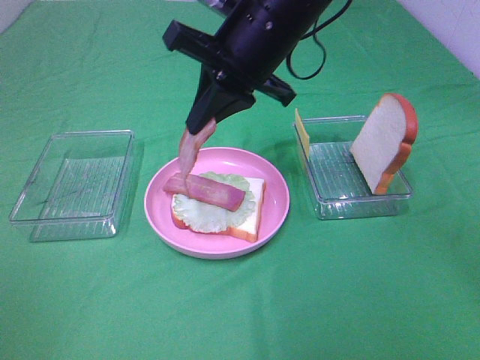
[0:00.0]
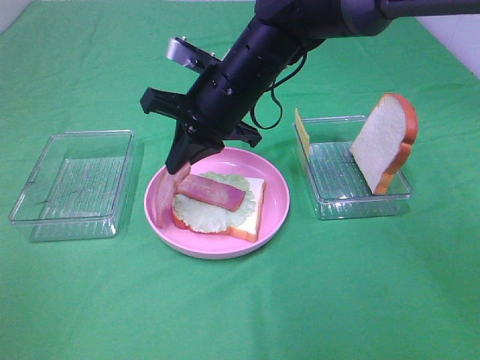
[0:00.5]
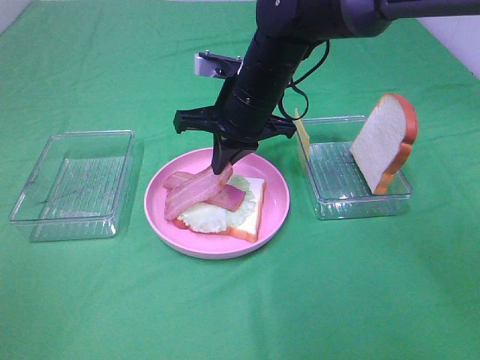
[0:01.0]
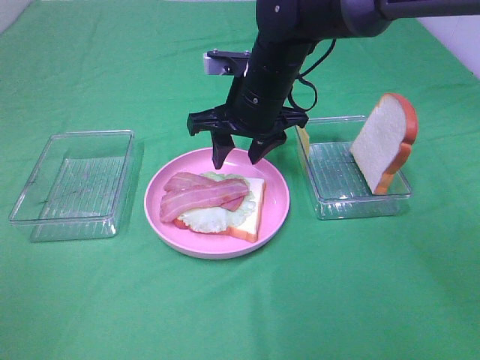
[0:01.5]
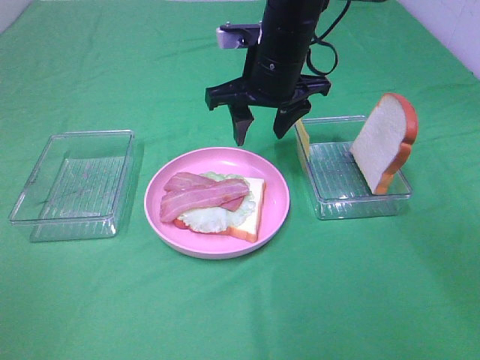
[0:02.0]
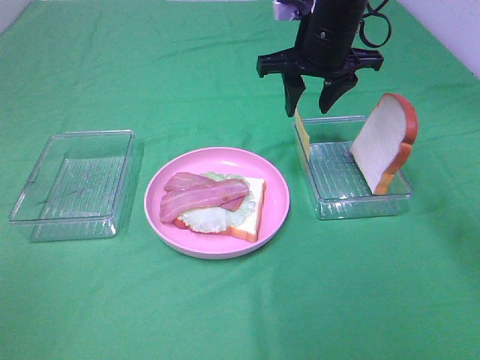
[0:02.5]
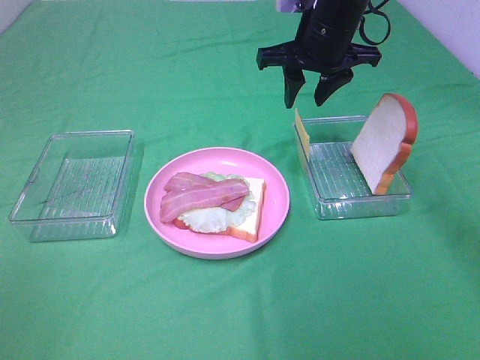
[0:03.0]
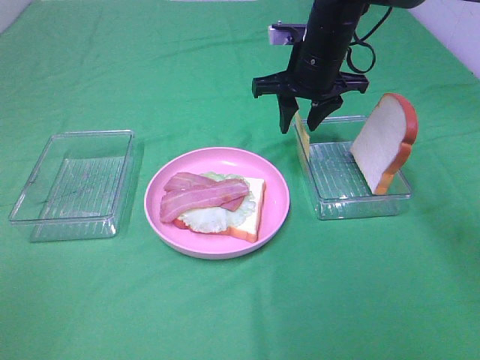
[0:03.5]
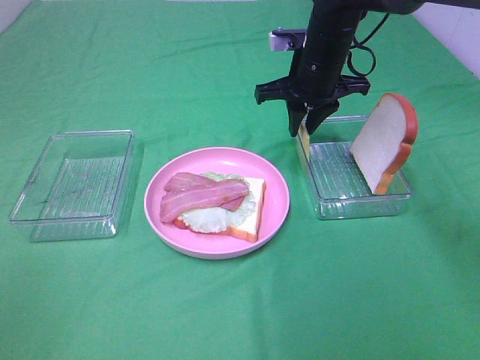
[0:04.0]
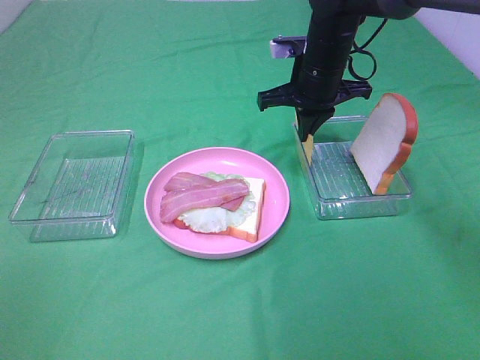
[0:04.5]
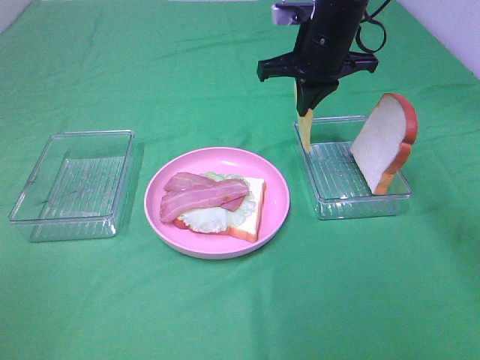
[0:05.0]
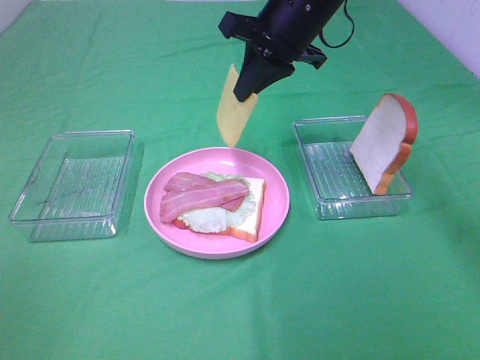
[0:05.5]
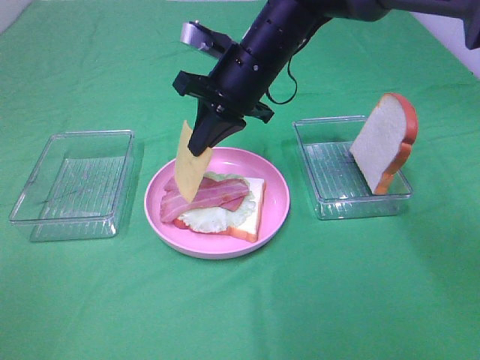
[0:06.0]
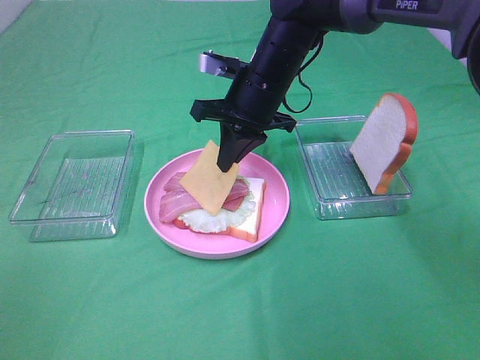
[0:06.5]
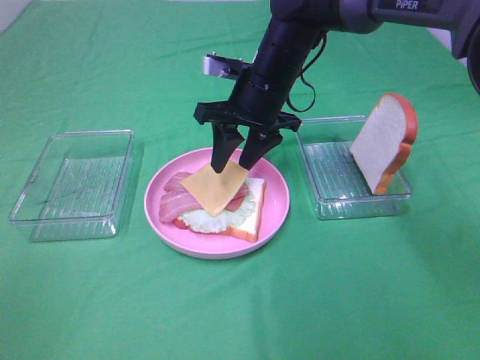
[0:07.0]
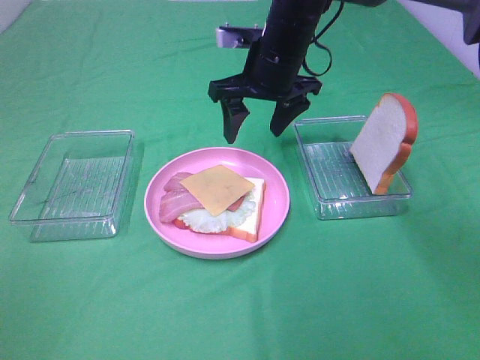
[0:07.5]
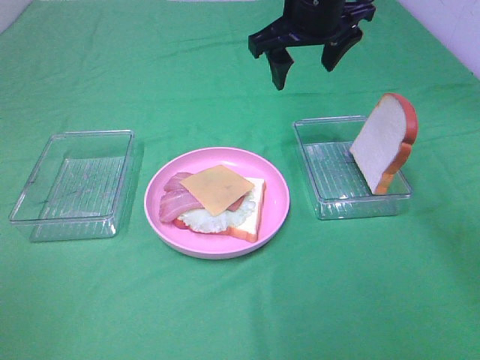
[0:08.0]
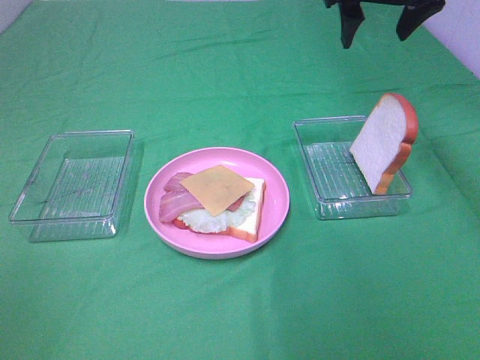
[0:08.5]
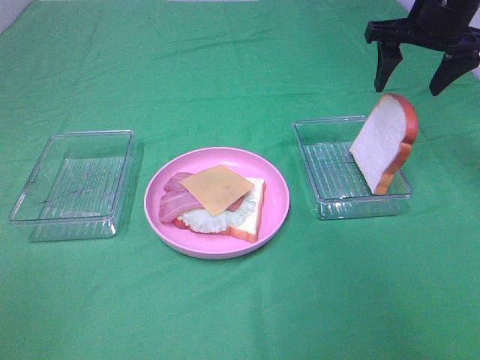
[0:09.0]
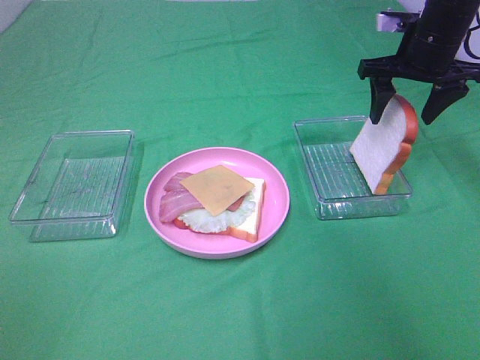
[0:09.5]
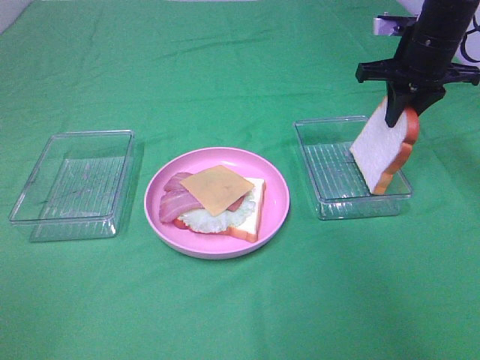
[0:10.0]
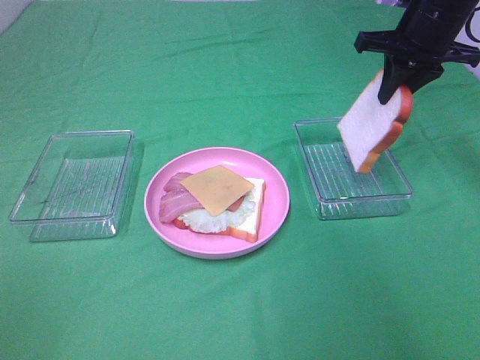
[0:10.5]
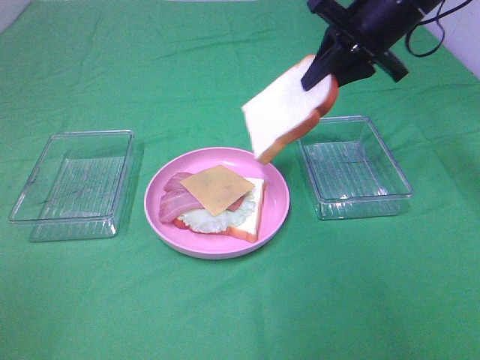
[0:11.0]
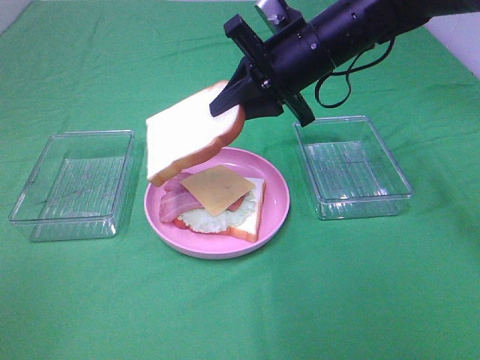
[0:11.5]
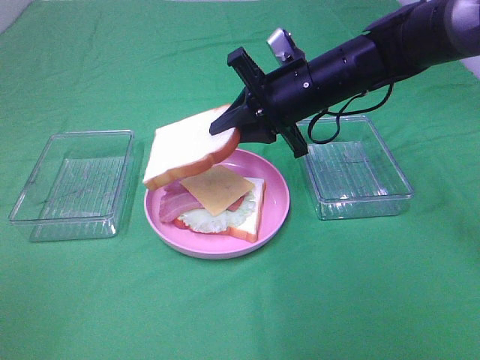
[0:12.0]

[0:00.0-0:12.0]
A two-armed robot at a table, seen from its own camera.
Task of the whole recording: Make sandwiches.
Step, 0:01.5 to 0:04.5: Right hand:grab the cheese slice.
Step, 0:05.0 to 0:07.0: Right hand:place the cheese slice on top of the bacon.
Step, 0:07.5 to 0:10.0: Right hand:grab the bread slice.
0:00.0 to 0:02.0: The right gripper moves forward, some 5 cm, and opens up.
0:02.0 to 0:04.0: The right gripper heads to the right and forward, covering roughly 10 cm, and closes.
0:04.0 to 0:06.0: The right gripper goes some 10 cm to the left, moves some 10 cm upward and comes back, and closes its fingers.
0:06.0 to 0:08.0: The right gripper goes roughly 10 cm upward and to the right, and opens.
0:08.0 to 0:10.0: The right gripper is displaced to the right and downward by about 15 cm, and closes up.
0:10.0 to 0:12.0: The right gripper heads to the left and backward, covering about 15 cm.

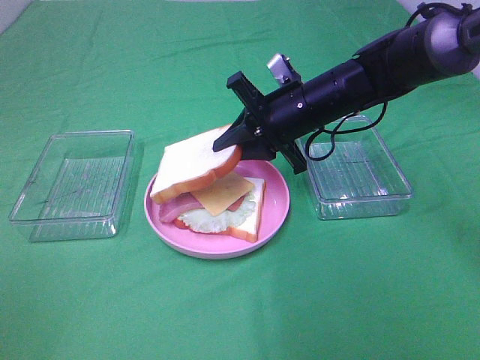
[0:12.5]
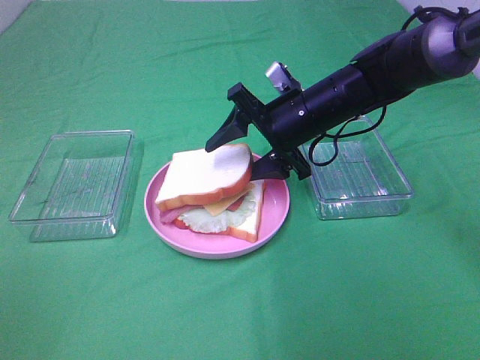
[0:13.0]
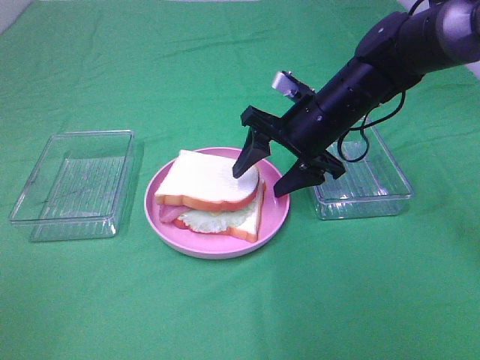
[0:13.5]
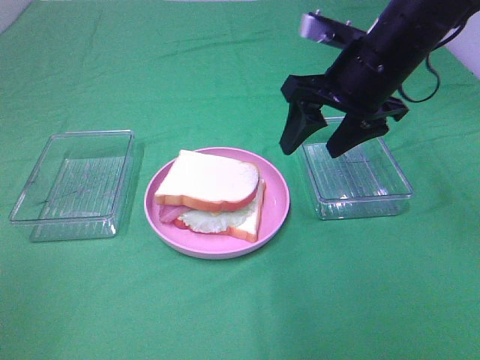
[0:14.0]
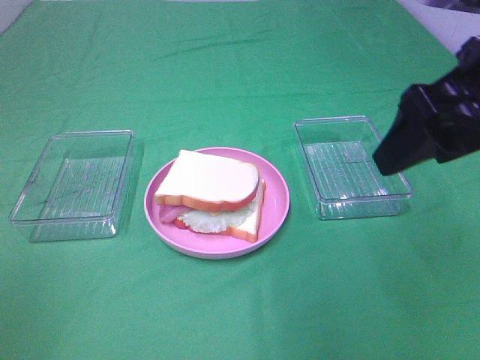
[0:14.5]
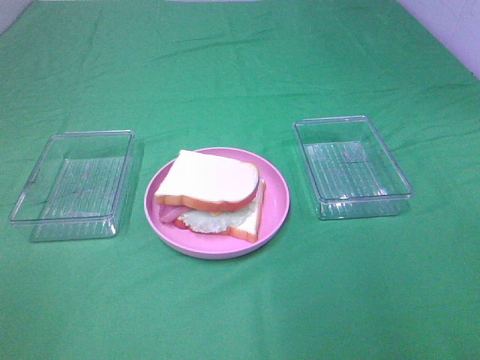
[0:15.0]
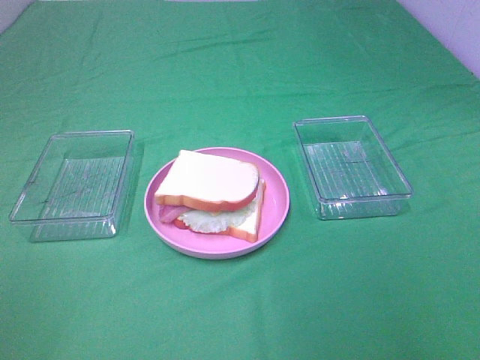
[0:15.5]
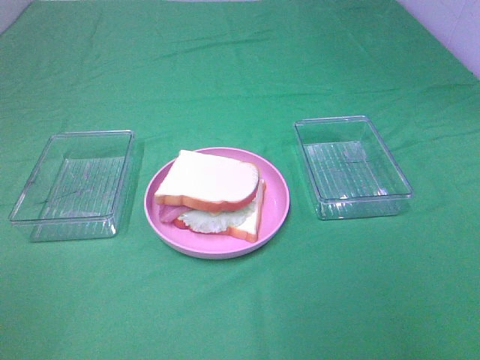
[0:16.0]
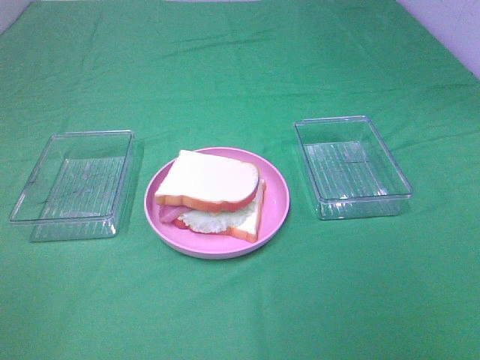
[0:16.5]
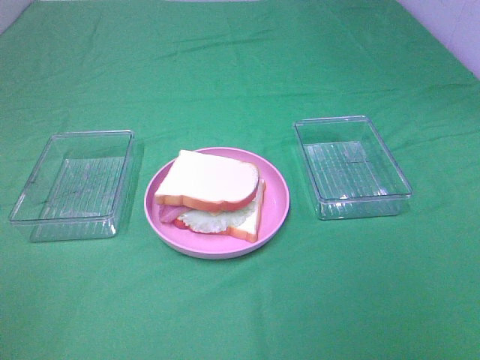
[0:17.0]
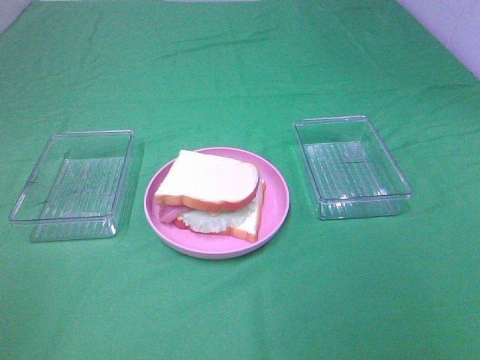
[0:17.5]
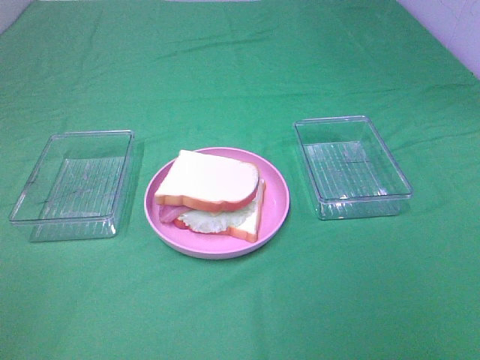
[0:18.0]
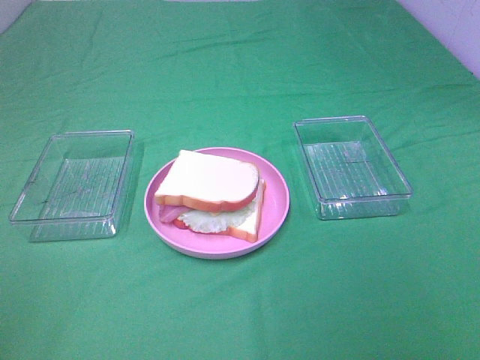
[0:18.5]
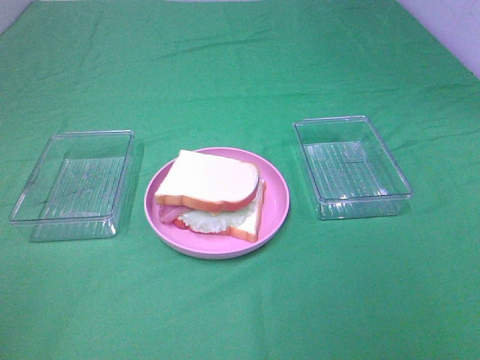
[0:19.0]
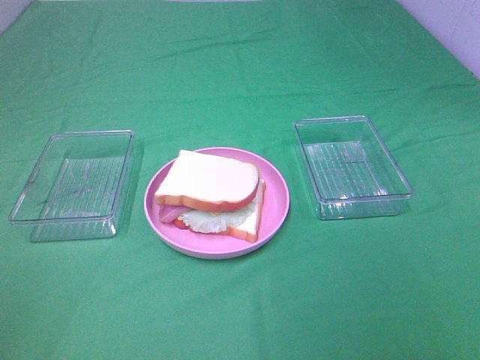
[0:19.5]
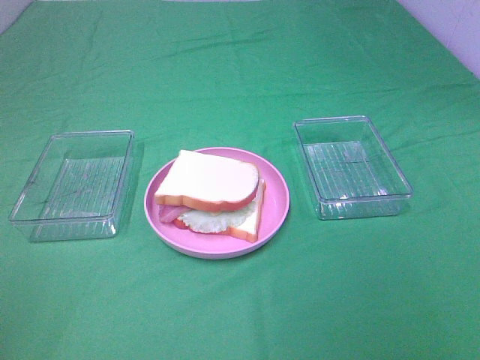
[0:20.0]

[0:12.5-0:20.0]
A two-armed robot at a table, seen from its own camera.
Task of the whole recording: Make sandwiches.
0:12.5 to 0:14.5: The right gripper shifts approximately 25 cm backward, upward and to the right, and opens up.
0:14.5 to 0:16.5: The right gripper heads backward and to the right, covering roughly 20 cm.

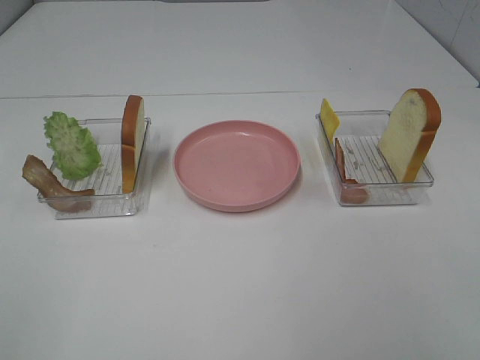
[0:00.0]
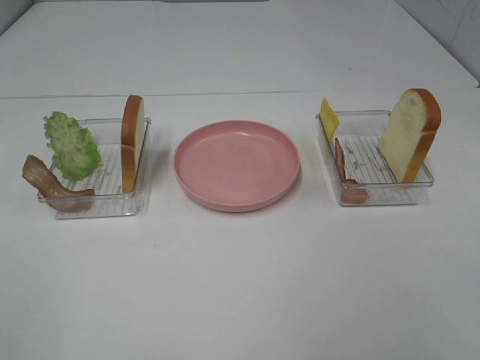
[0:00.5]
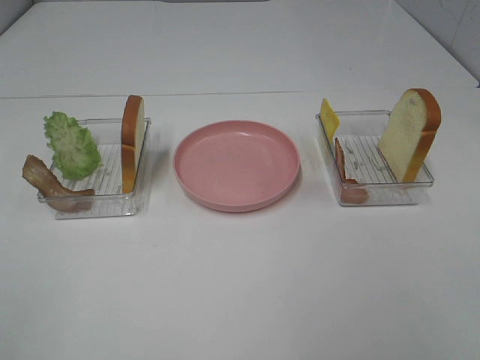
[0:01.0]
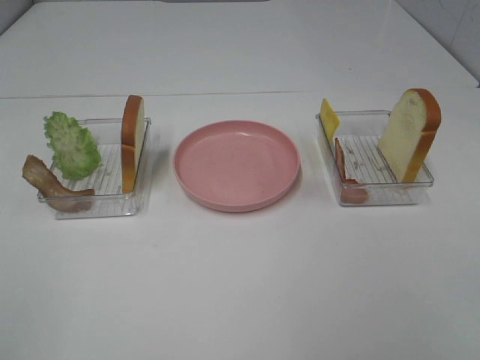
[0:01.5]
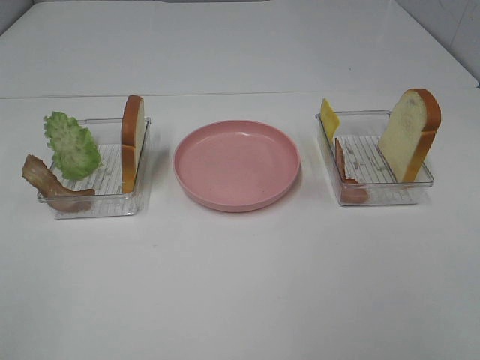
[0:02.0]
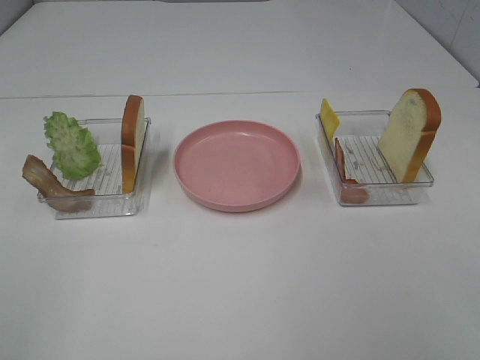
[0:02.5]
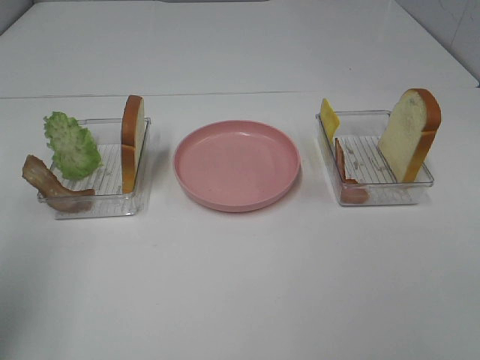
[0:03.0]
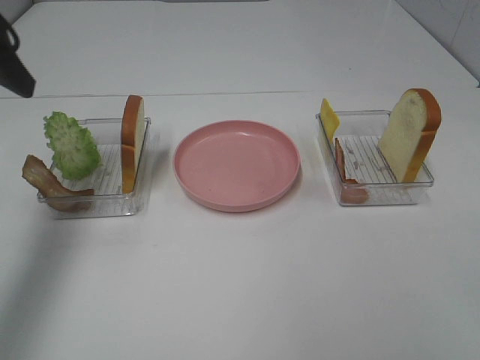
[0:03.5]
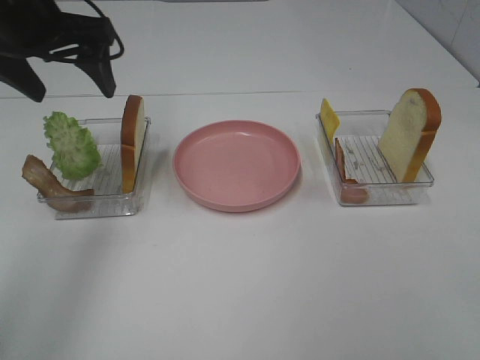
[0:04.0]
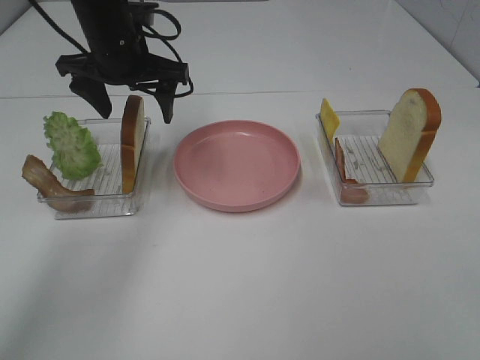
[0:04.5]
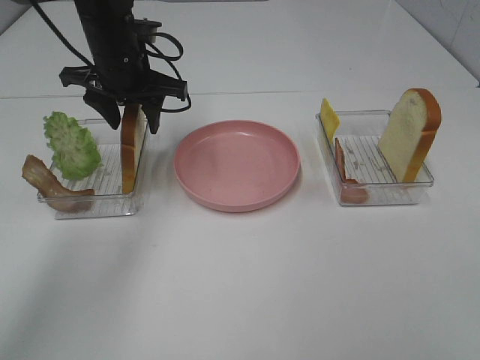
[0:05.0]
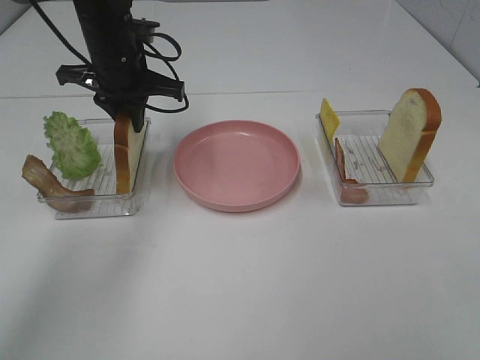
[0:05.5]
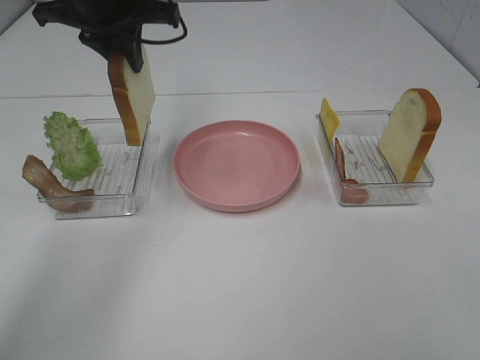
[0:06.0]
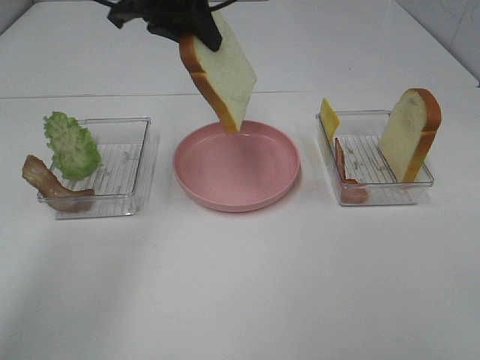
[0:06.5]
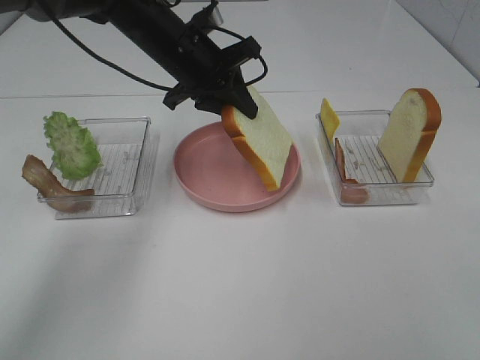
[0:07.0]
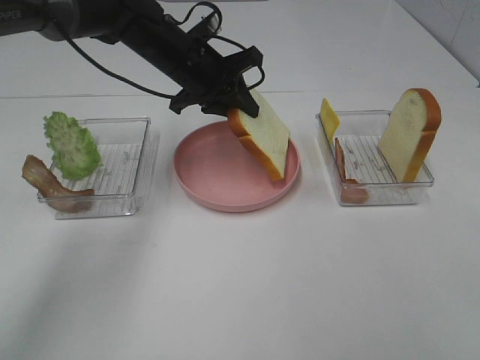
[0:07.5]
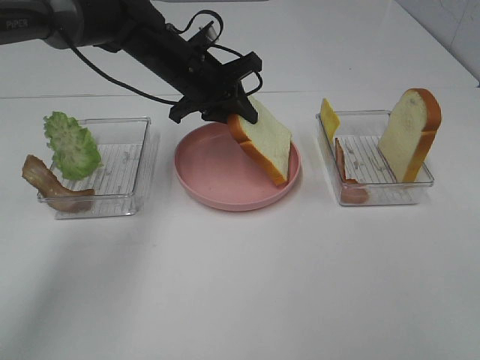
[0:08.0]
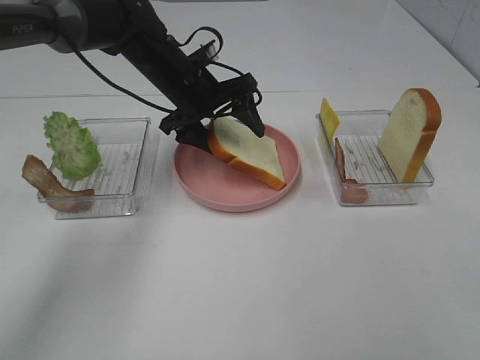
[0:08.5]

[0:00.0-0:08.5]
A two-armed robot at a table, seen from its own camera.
Task of the whole recording: Make sandwiches.
Step, 0:00.0 to 0:05.5: Left hand:grab the bread slice.
0:00.0 to 0:02.0: Both grippers stay put.
0:02.0 to 0:04.0: The left gripper travels forward by roughly 40 cm.
0:04.0 to 0:06.5: The left gripper travels to the right by approximately 10 cm, reaches roughly 10 cm downward, then returns, and closes up.
0:06.5 to 0:08.5: The left gripper moves downward, roughly 15 cm, and opens its fingers.
